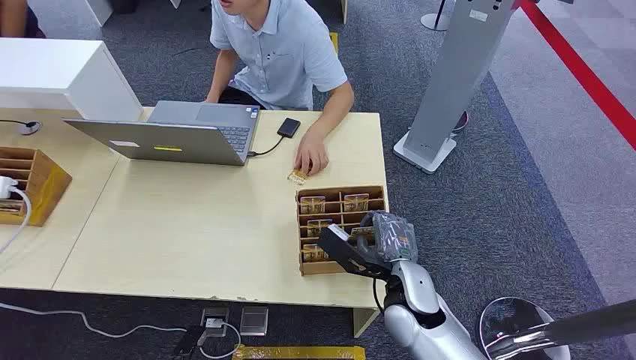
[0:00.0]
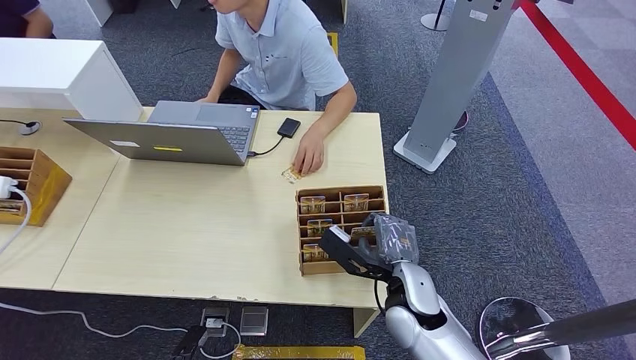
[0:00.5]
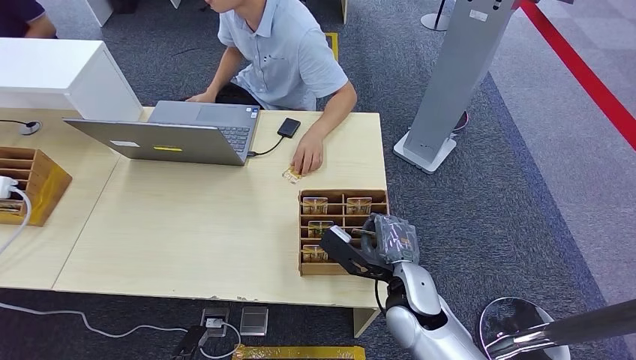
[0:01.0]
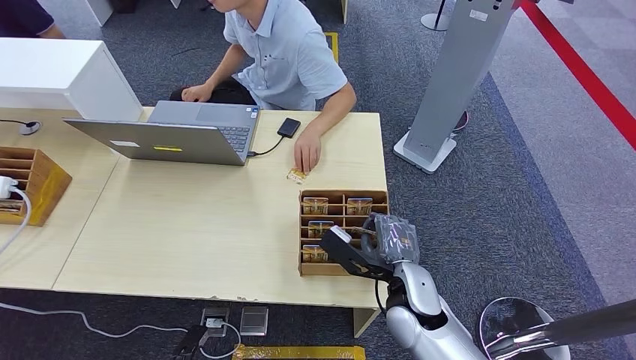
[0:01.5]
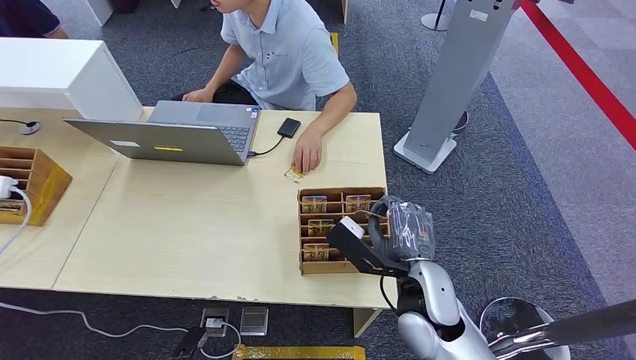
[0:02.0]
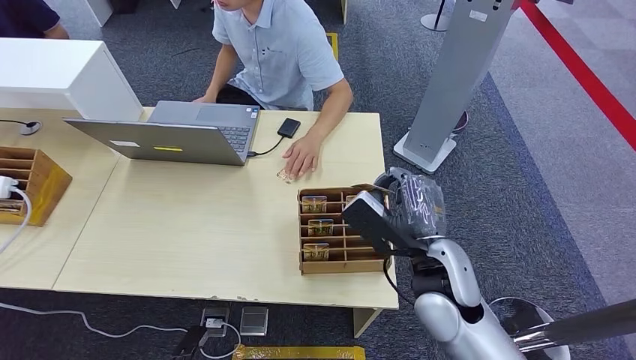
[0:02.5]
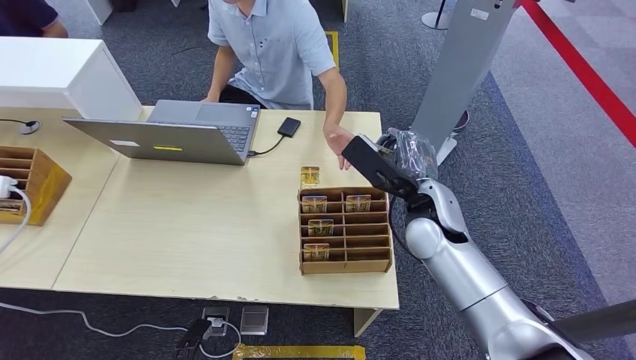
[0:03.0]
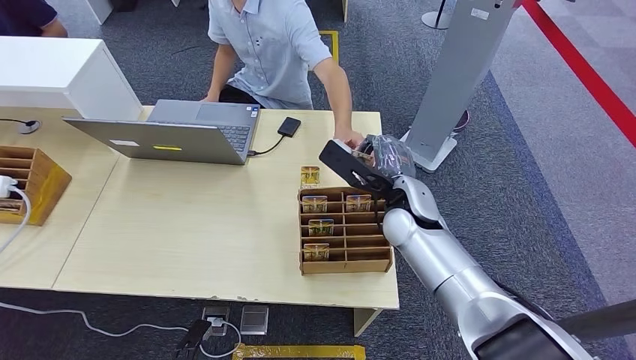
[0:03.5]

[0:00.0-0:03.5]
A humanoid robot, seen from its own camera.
Step, 0:00.0 to 0:01.5: Pick up the room card from the card holder.
Step, 0:02.5 to 0:03.5: Hand the room card to the target.
0:02.0 to 0:03.5: The right hand heads forward, covering approximately 15 cm.

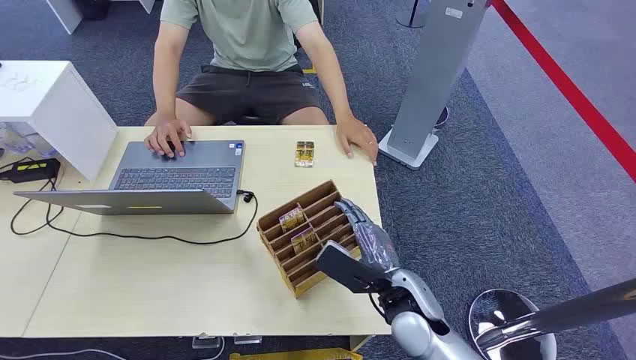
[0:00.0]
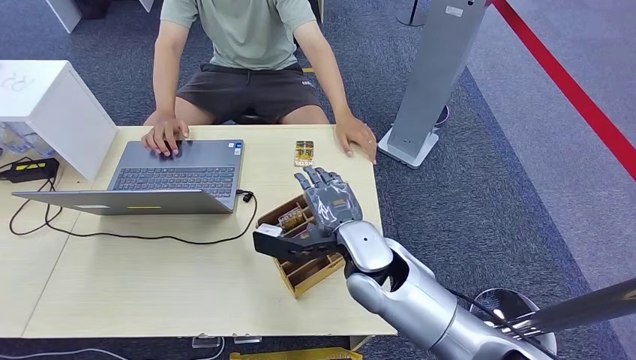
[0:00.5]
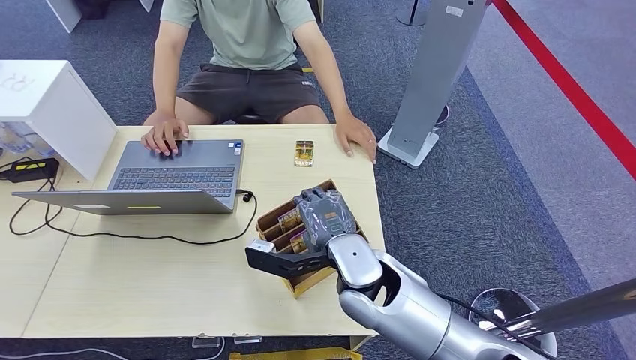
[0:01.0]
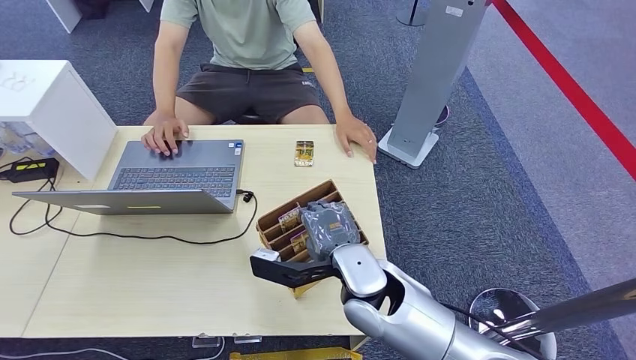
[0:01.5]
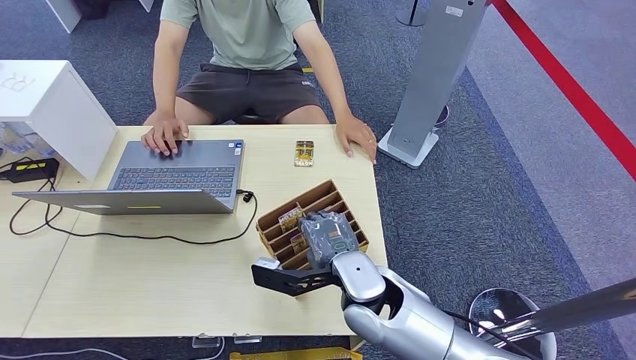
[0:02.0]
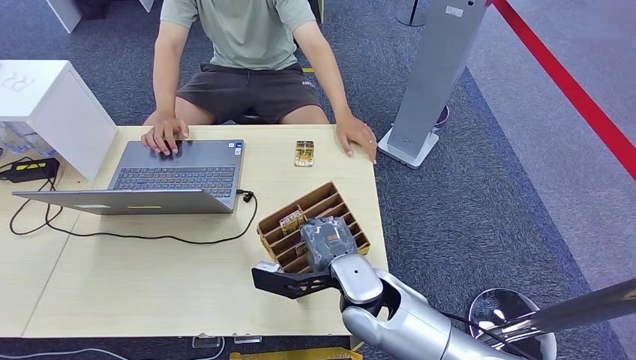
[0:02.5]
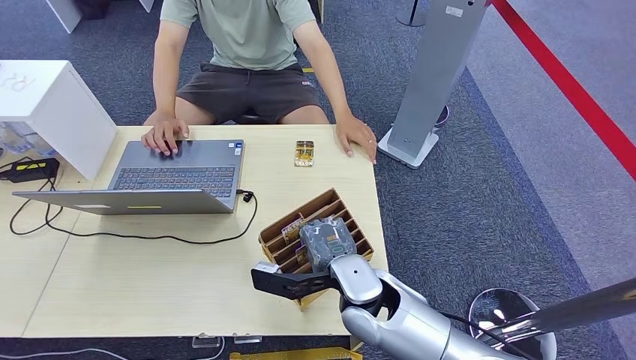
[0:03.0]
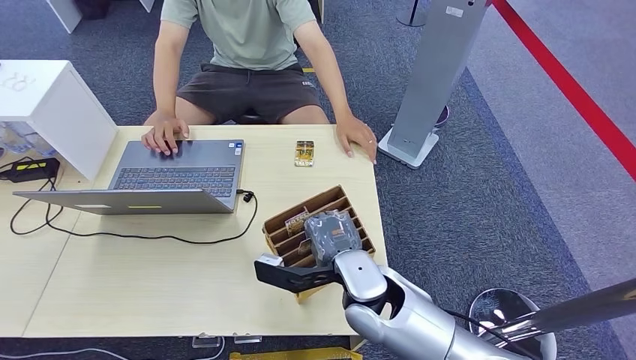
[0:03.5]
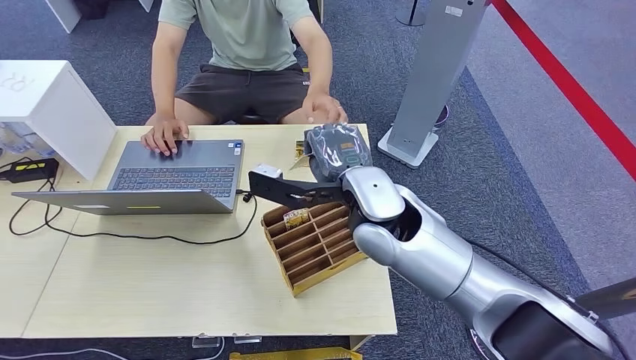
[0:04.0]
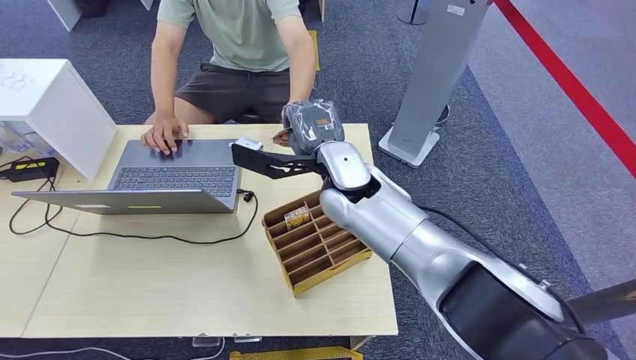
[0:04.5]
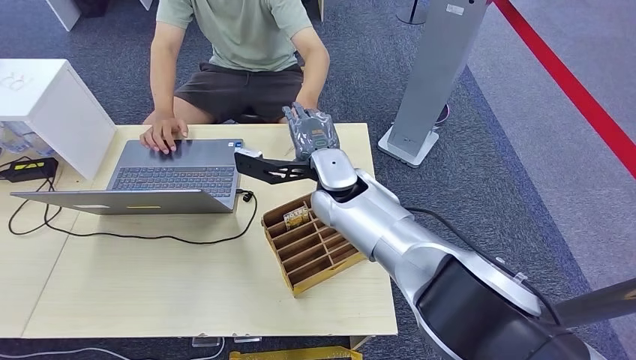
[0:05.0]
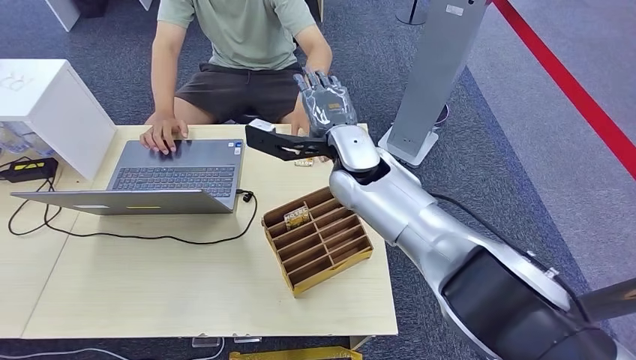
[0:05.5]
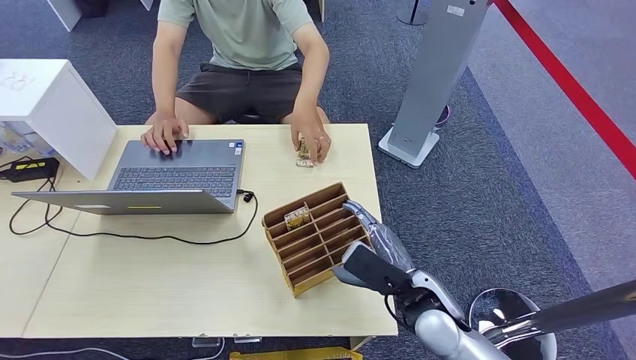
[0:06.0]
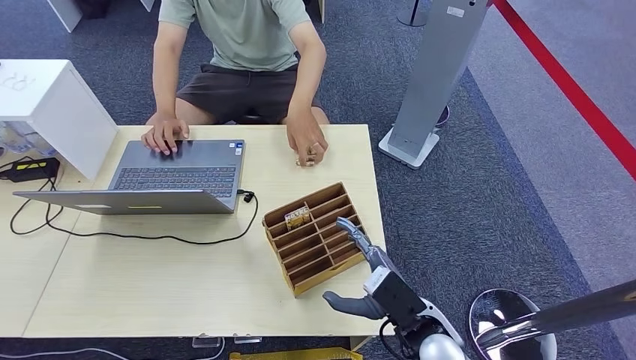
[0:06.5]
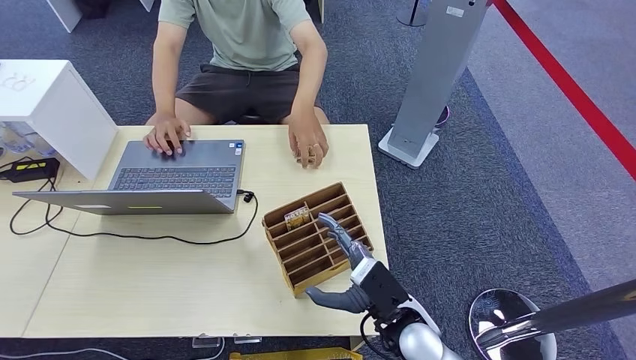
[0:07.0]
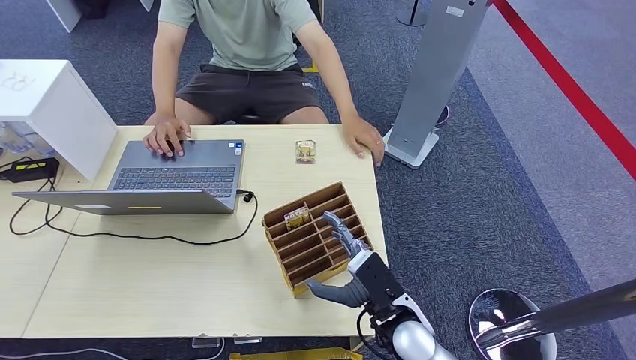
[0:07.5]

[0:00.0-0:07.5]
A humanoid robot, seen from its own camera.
Step, 0:00.0 to 0:03.5: Pick up the room card from the card holder.
Step, 0:04.0 to 0:07.5: Hand the room card to the target.
0:02.0 to 0:04.0: The right hand travels upward and forward by approximately 15 cm.
0:04.0 to 0:05.5: The right hand moves forward, roughly 10 cm.
0:05.5 to 0:07.5: The right hand shifts approximately 30 cm backward, downward and to the right.
